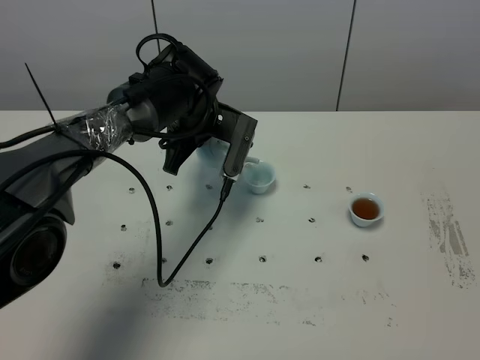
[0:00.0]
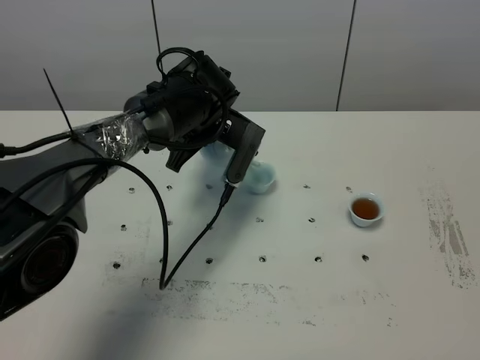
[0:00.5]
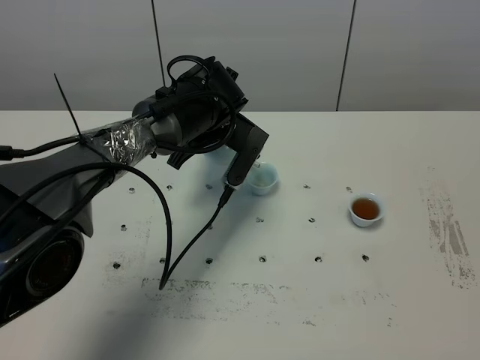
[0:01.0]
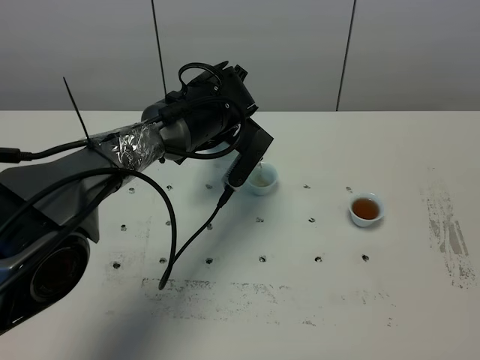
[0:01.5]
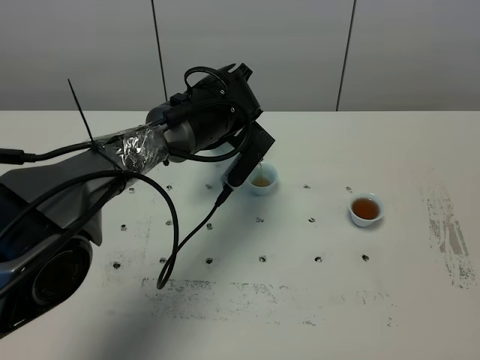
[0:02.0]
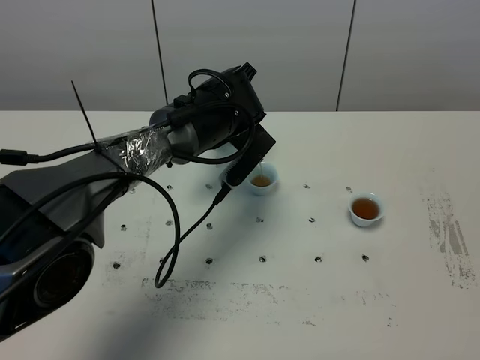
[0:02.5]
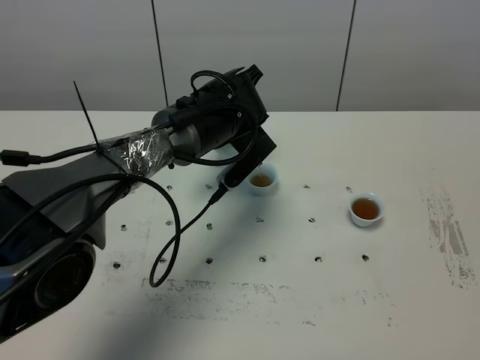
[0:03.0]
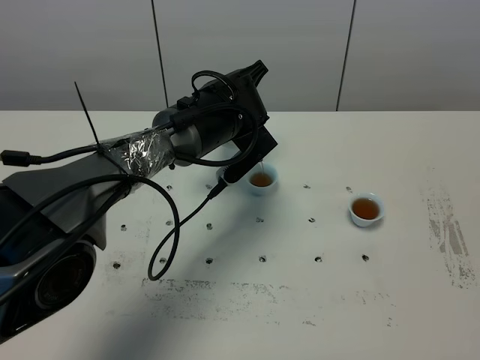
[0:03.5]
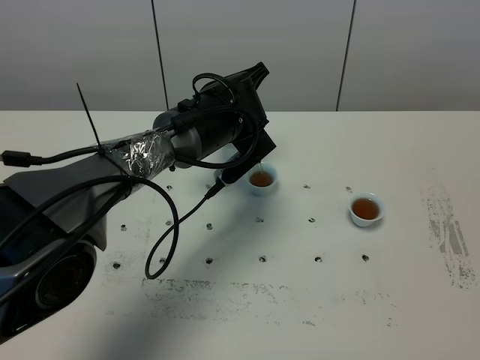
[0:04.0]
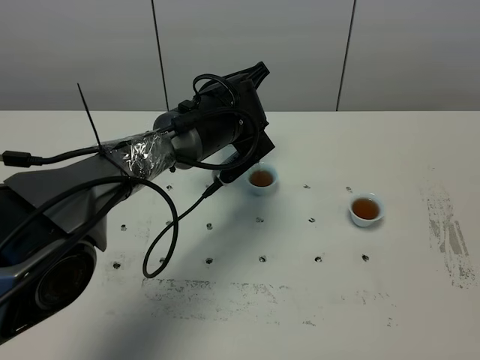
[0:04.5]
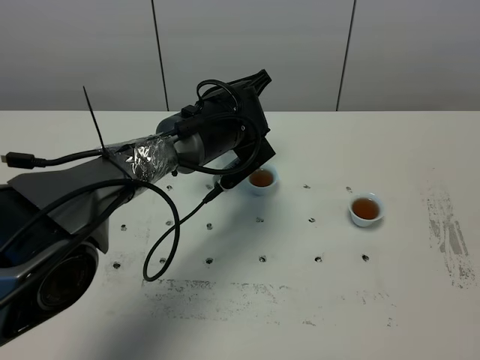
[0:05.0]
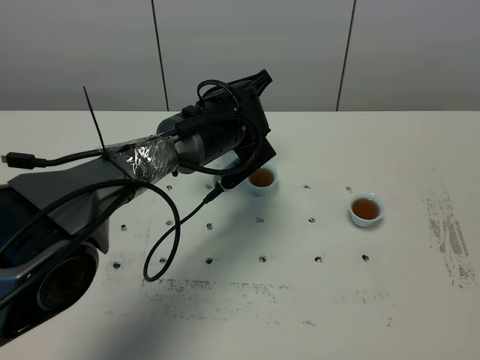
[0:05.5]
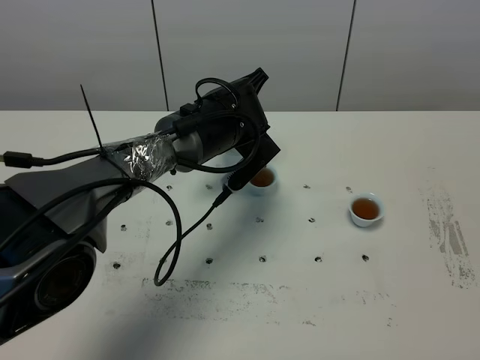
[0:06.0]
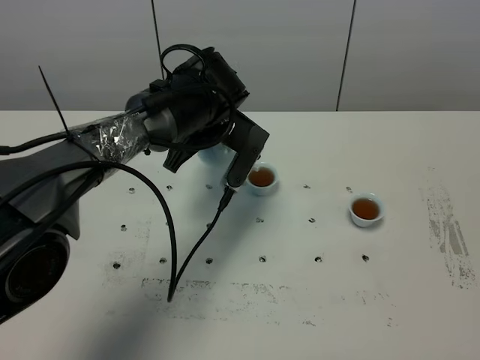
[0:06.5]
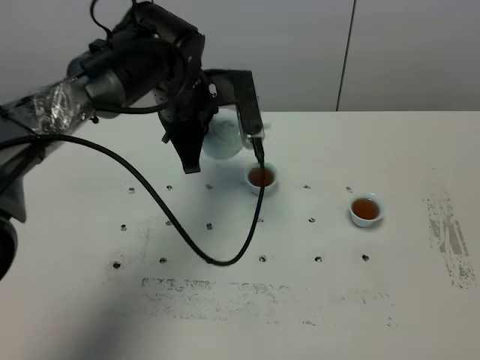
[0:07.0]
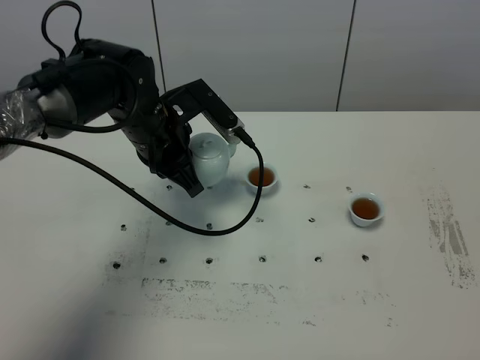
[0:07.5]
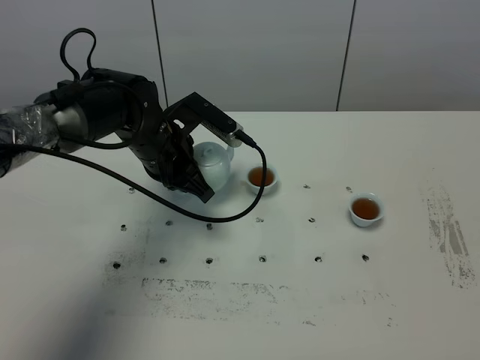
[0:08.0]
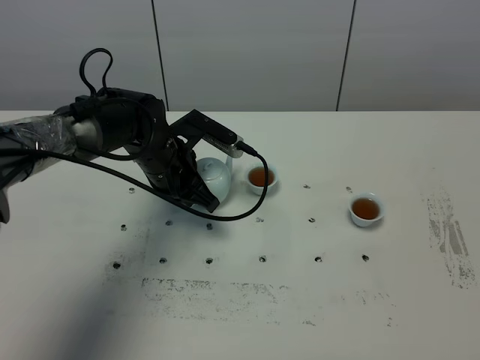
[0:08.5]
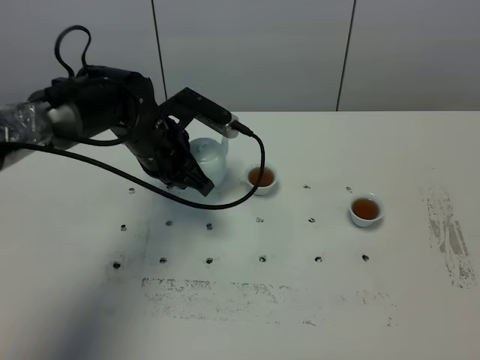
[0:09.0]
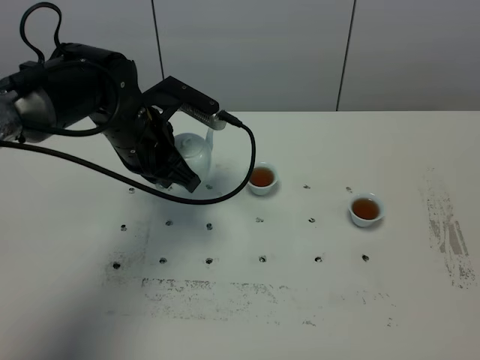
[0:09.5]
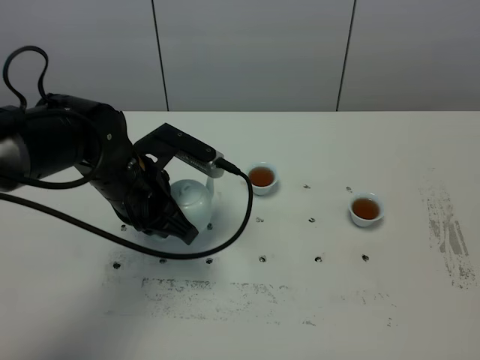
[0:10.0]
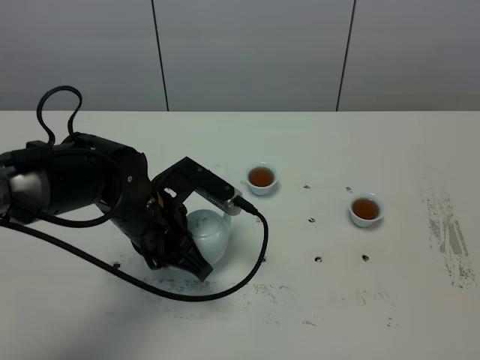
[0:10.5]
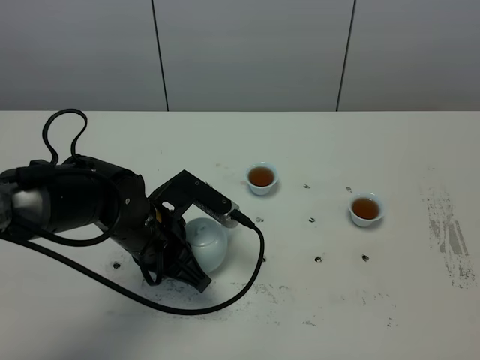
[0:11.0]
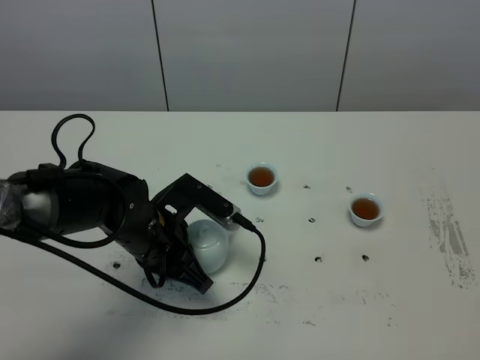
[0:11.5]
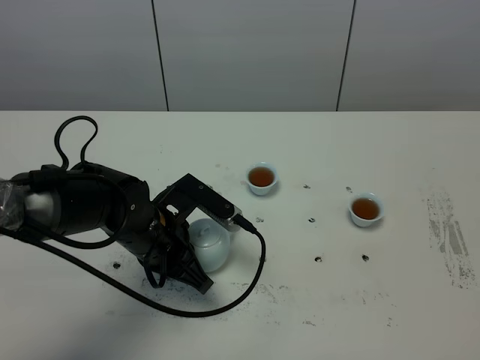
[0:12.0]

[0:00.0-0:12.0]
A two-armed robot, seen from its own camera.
Task of the whole recording: grasp the blue porcelain teapot and pour the tea into the two blue porcelain teacups one by one, put the blue porcelain teapot back in its original place.
Step, 0.0 to 6.5 s: Pour tea into the teacup with the left gripper.
2.0 to 6.0 s: The grippers stay close to where they were, moving slightly.
6.0 to 8.0 s: The left gripper is displaced to the left by about 10 cm.
8.0 to 10.0 s: The left gripper shifts about 10 cm backward.
10.0 to 12.0 s: The left gripper heads downward, covering roughly 5 cm.

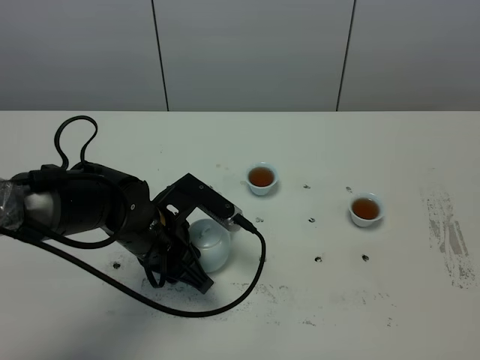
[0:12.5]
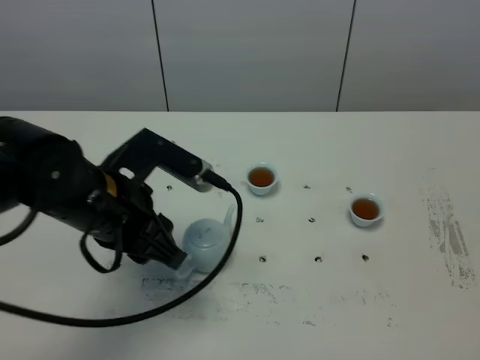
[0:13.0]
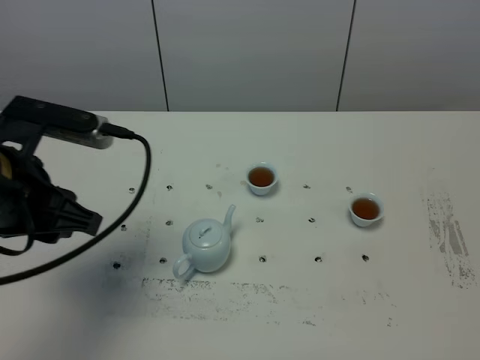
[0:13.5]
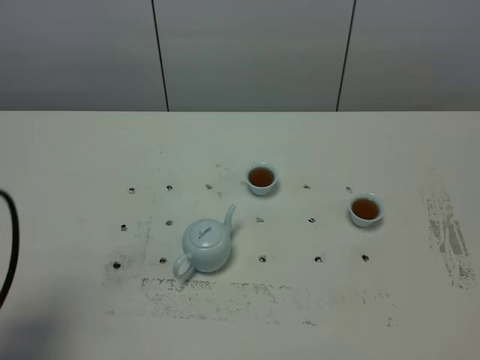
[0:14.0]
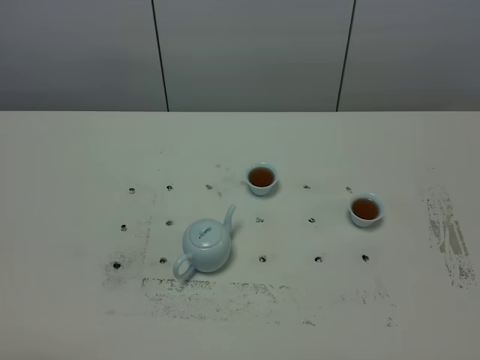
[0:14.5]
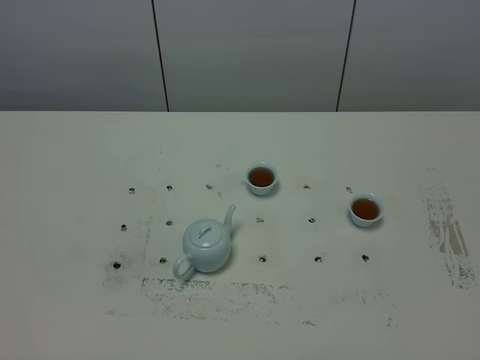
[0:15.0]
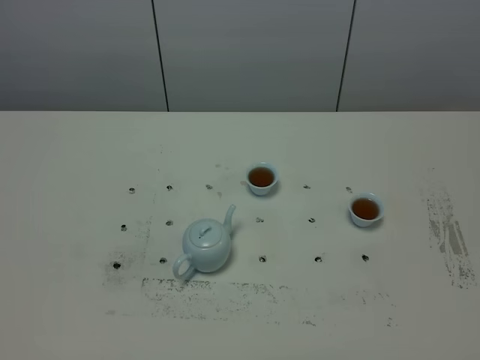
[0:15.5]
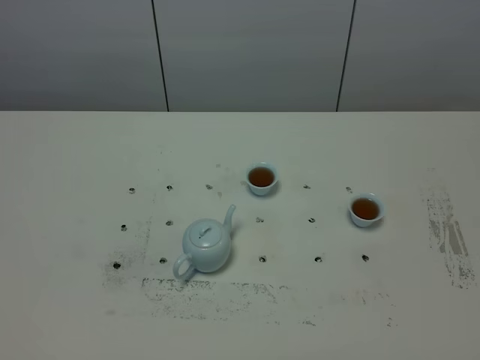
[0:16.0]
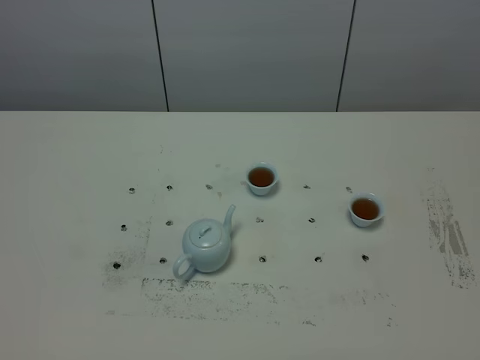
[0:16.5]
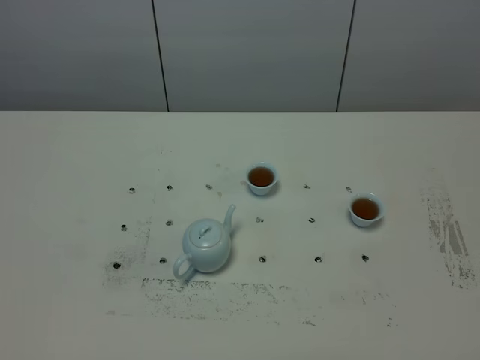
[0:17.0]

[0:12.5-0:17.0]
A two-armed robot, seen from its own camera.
Task of the whole recording: grasp the blue porcelain teapot and pour the tea into the two blue porcelain teacups one by one, put the blue porcelain teapot back in its original place.
12.5 to 14.5 s: The left gripper moves backward, to the left and upward, about 35 cm.

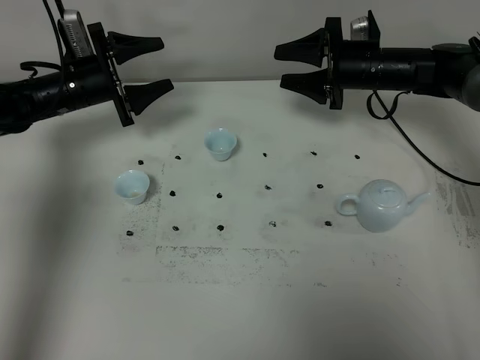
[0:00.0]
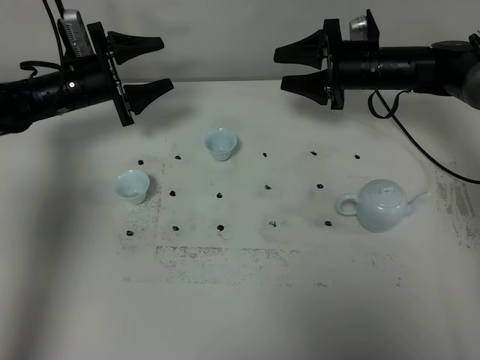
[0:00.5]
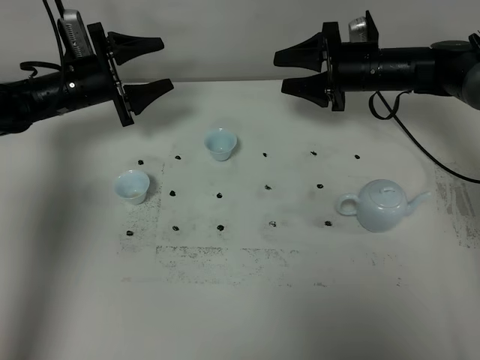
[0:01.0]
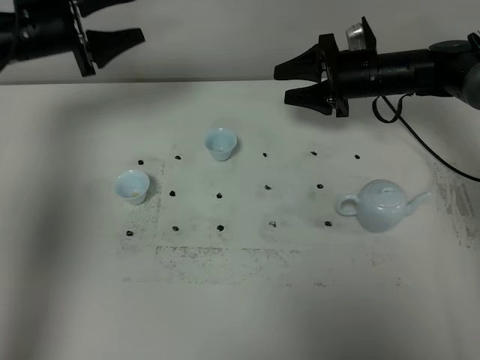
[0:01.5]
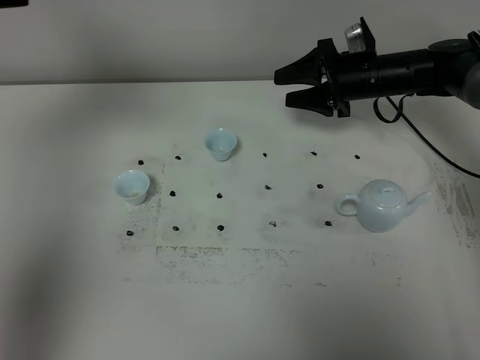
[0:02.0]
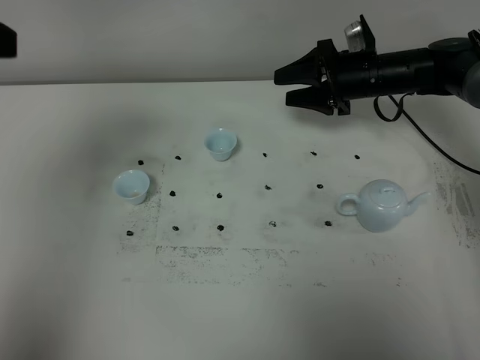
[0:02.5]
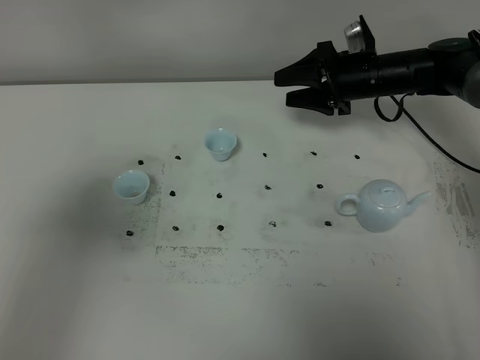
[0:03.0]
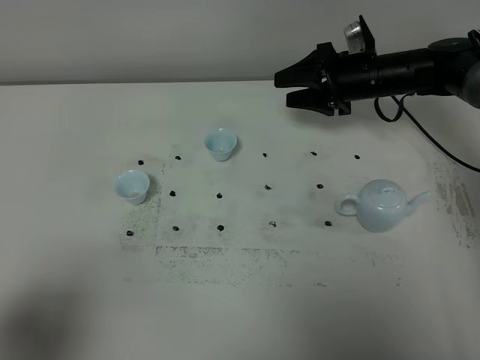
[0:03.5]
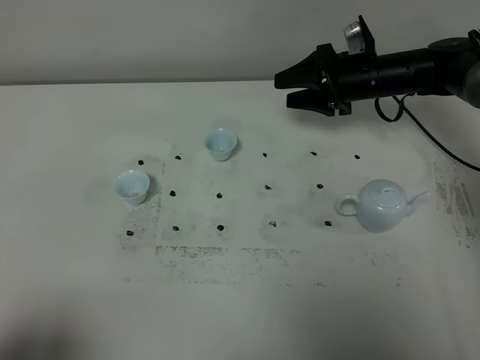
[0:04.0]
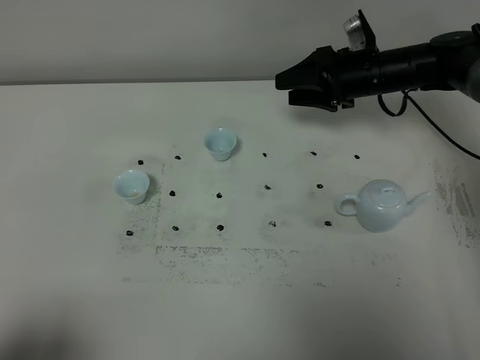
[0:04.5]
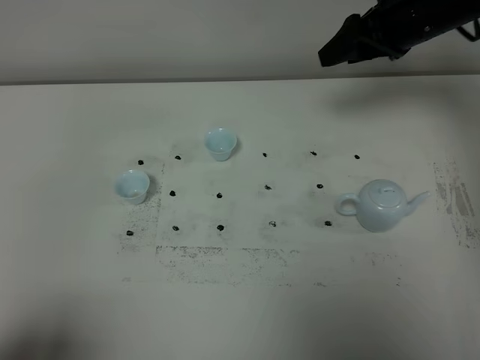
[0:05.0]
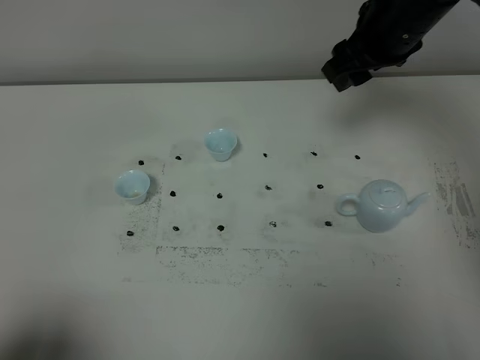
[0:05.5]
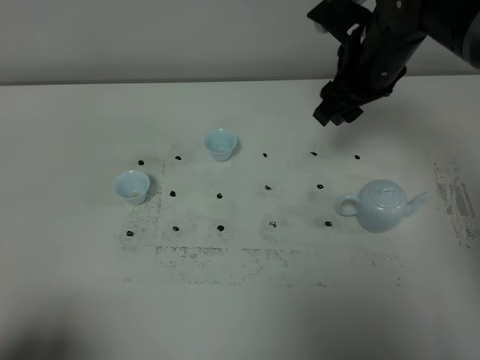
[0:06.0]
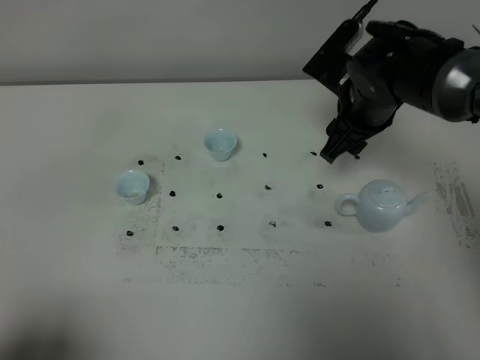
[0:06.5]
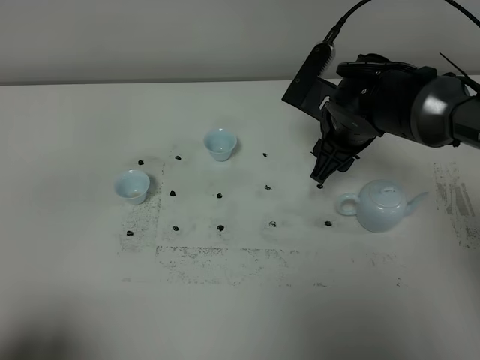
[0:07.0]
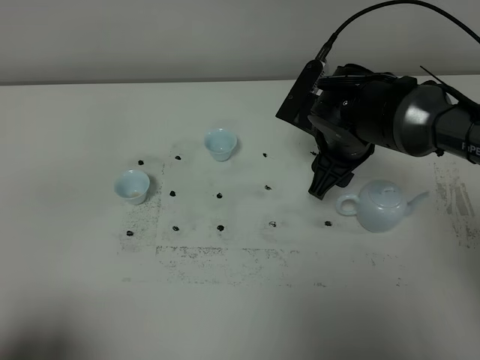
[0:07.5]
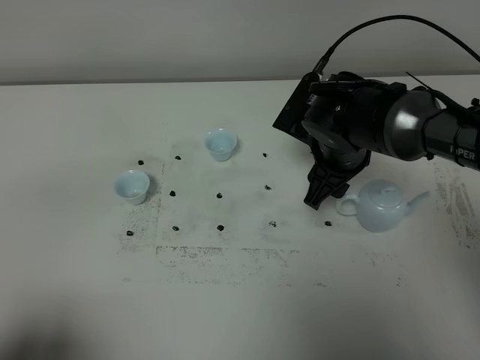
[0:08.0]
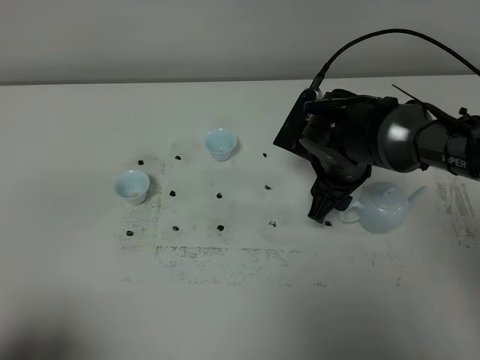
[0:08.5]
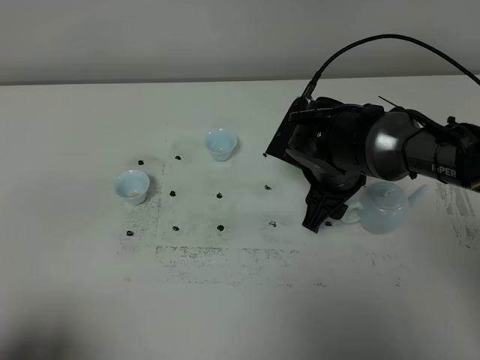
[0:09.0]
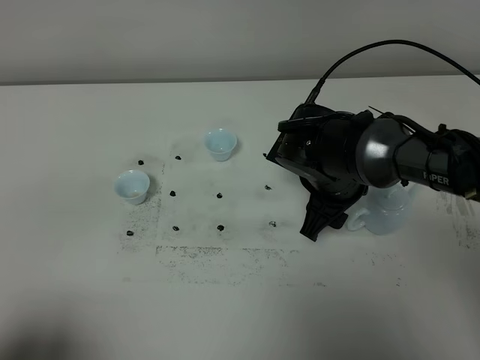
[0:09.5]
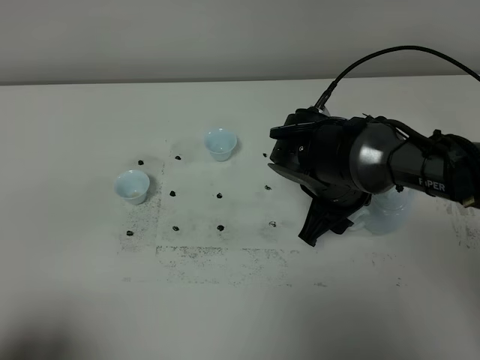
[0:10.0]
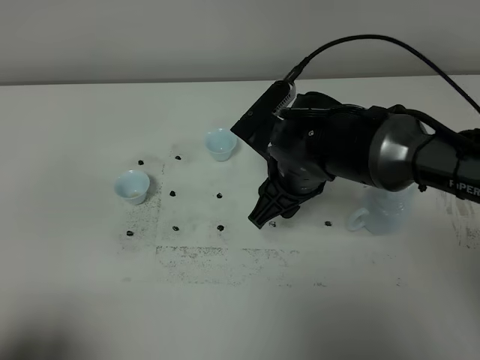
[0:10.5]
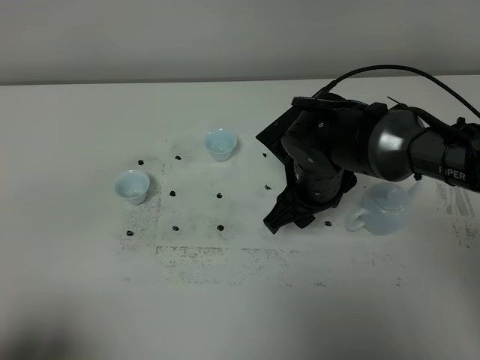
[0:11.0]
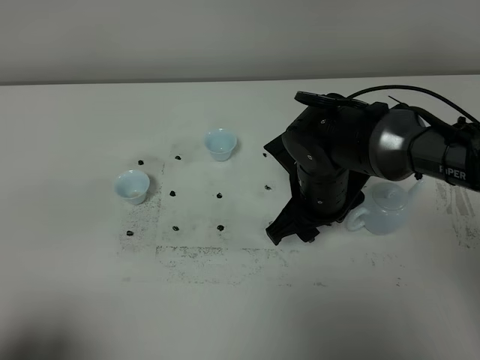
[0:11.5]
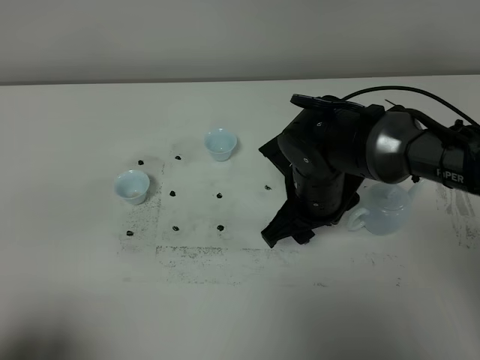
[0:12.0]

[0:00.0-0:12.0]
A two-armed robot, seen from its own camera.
Task of the whole recording: grasp the blue porcelain teapot and pour the tea into the two blue porcelain teacups one by one, put the blue porcelain teapot back in its original place.
0.0 to 2.0 s: The left gripper goes some 30 cm upward and backward.
2.0 to 4.0 s: The left gripper is displaced backward and downward by approximately 40 cm.
4.0 to 6.0 s: The right gripper is displaced upward and backward by some 15 cm.
6.0 to 8.0 s: The right gripper heads downward, covering approximately 10 cm.
8.0 to 10.0 s: The right gripper moves about 5 cm.
